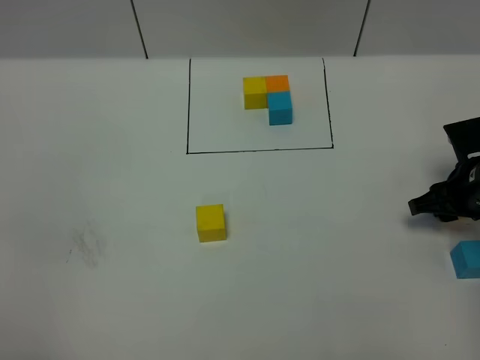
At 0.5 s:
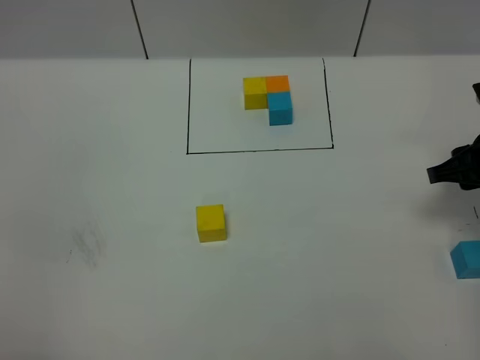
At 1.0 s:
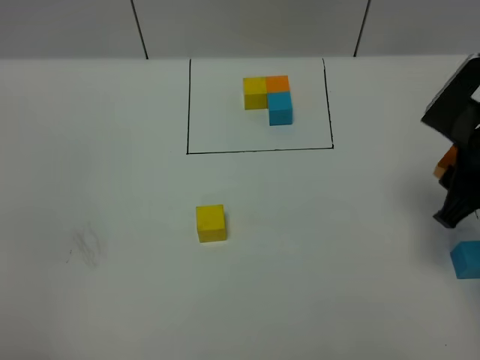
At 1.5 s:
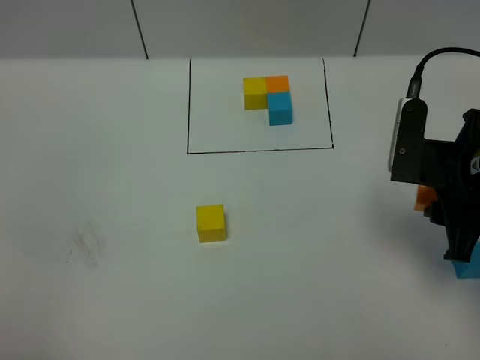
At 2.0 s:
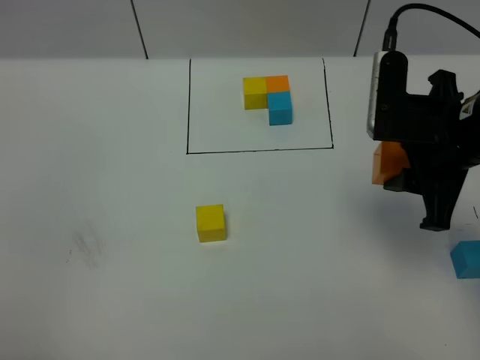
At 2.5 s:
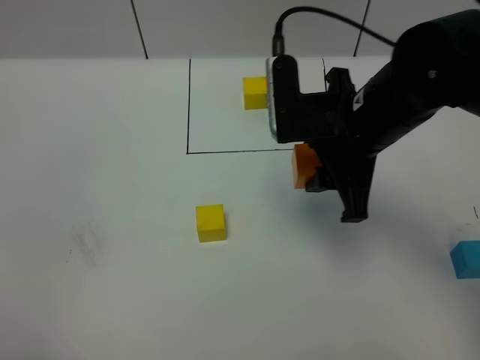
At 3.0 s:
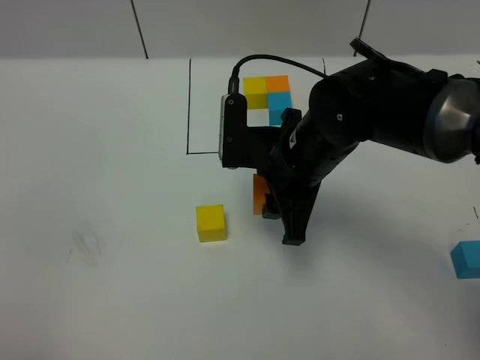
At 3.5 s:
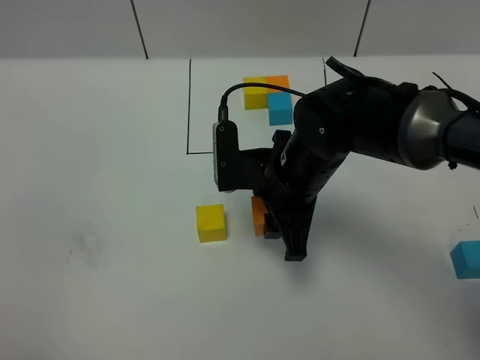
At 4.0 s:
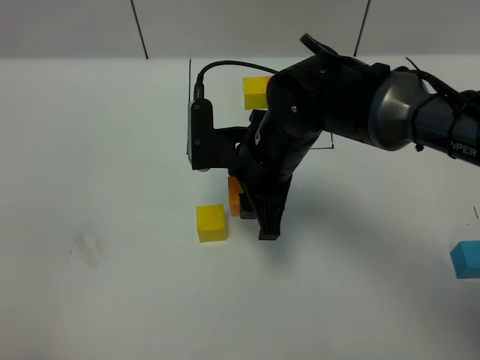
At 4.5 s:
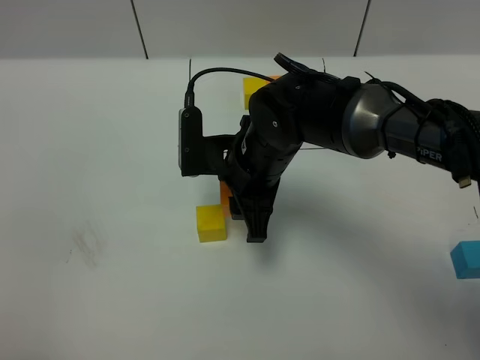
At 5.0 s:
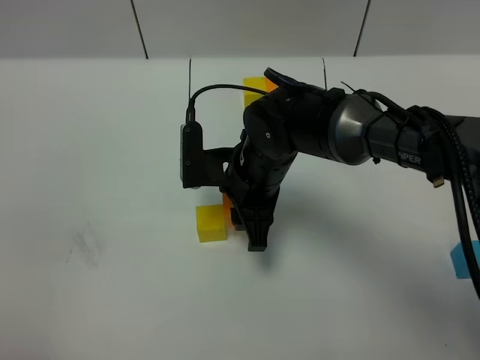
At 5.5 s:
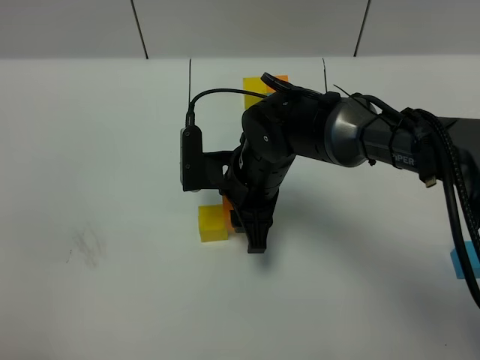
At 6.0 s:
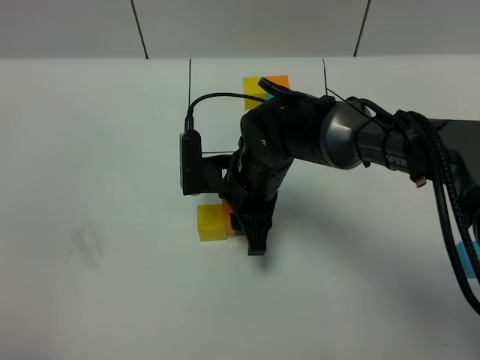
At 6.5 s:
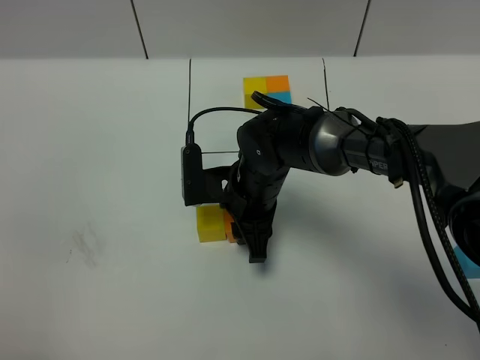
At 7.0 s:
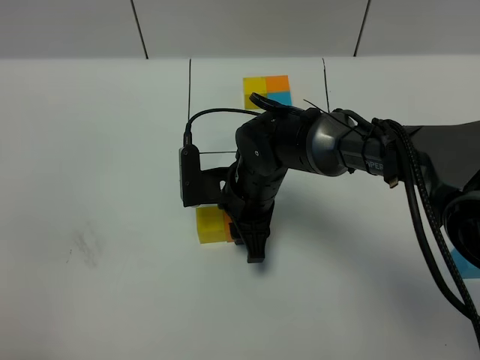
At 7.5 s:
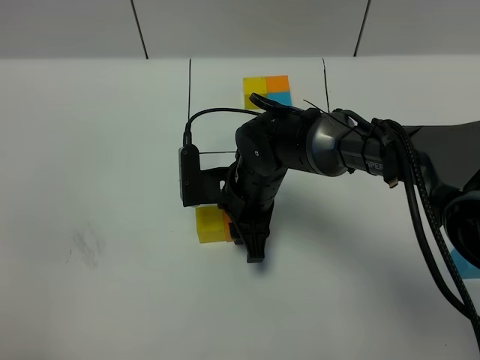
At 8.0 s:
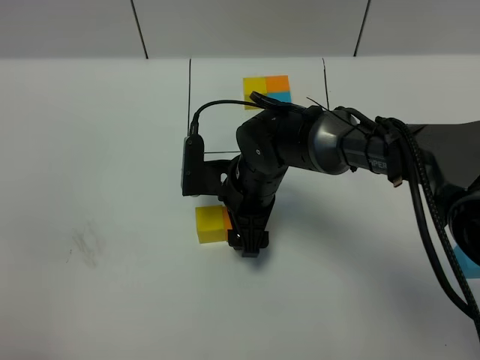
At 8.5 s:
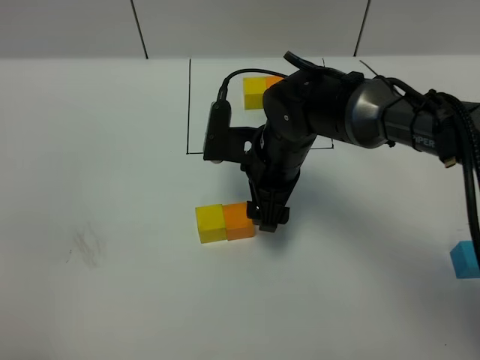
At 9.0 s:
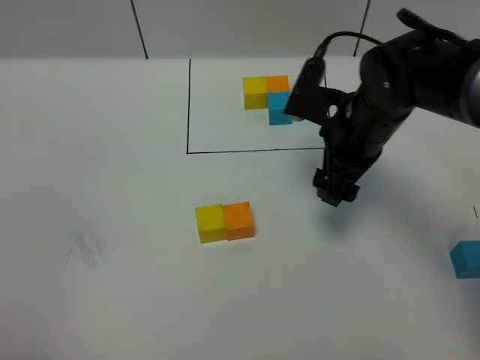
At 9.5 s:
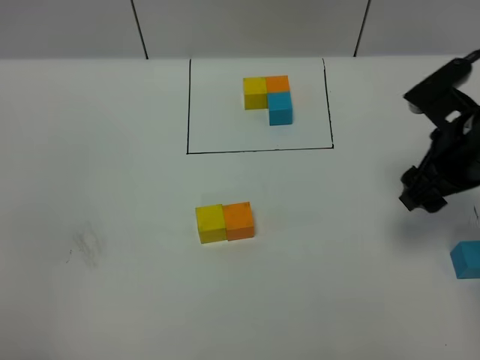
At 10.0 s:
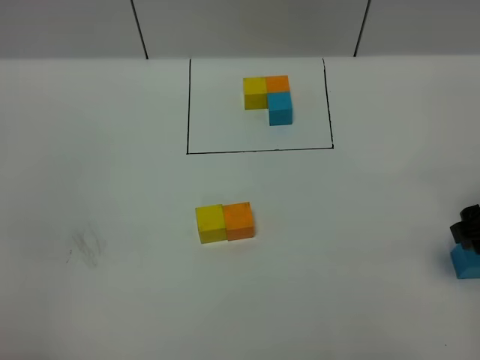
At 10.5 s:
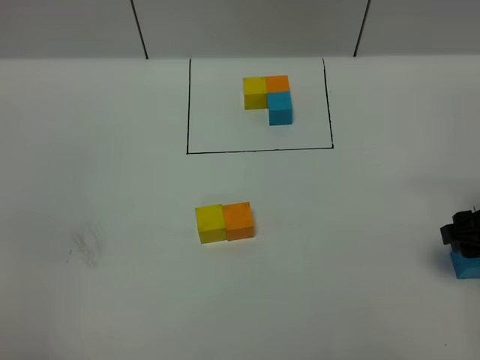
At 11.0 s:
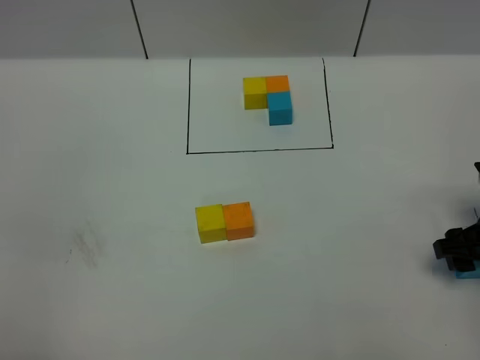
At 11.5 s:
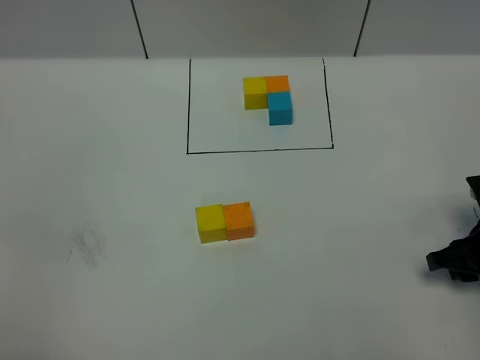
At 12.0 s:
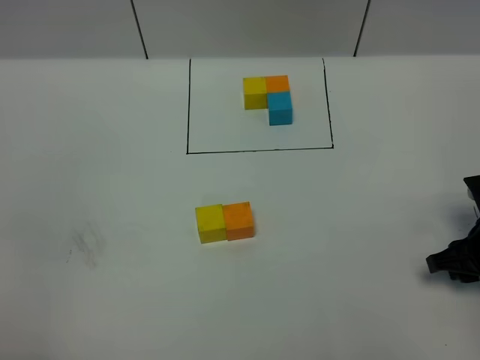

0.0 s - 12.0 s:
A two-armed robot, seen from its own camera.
Task of the whole recording: According to the building block template in front, assemble the scattered blocks together.
Step, 0.0 s - 8.5 s: Put the orange cube on the right of the yellow cube.
0.0 s - 2.0 s: The right gripper goes about 20 cm upward and to the left.
2.0 s - 4.0 s: The right gripper is displaced to the left and downward by roughly 20 cm.
4.0 s - 6.0 s: The right gripper travels downward by some 5 cm.
6.0 s - 8.0 s: The right gripper opens its fingers.
8.0 s - 10.0 s: The right gripper moves to the right, roughly 30 cm.
10.0 s - 12.0 s: The right gripper is displaced downward by approximately 10 cm.

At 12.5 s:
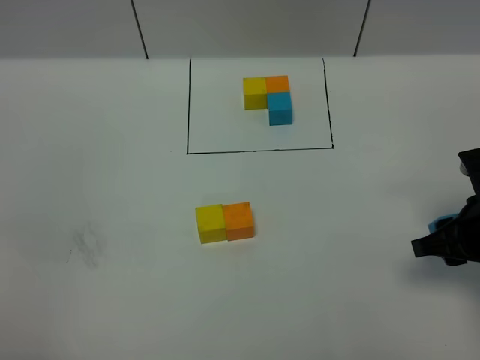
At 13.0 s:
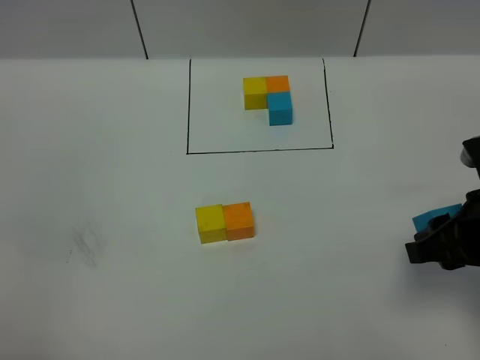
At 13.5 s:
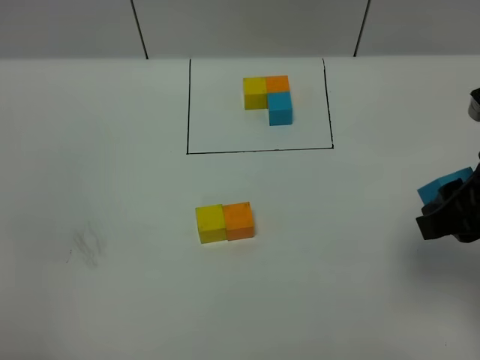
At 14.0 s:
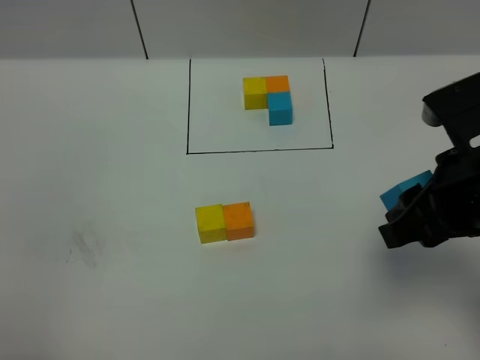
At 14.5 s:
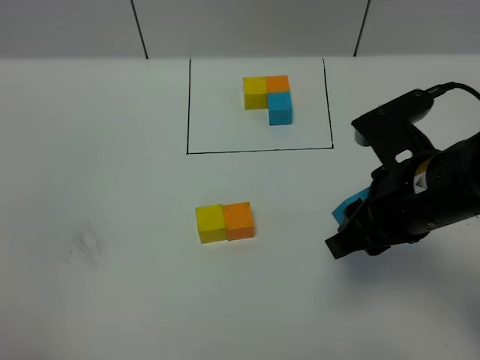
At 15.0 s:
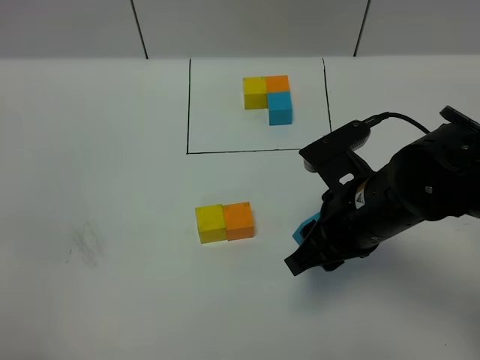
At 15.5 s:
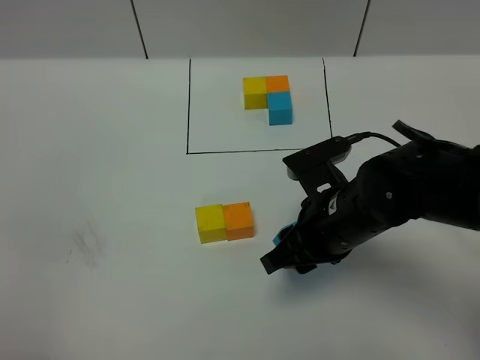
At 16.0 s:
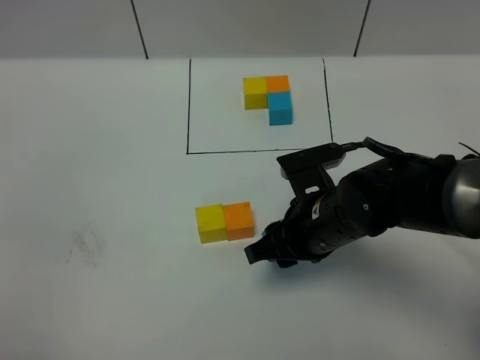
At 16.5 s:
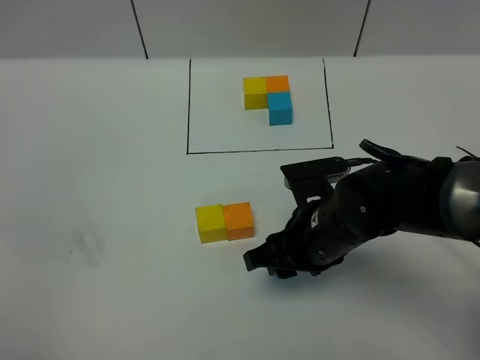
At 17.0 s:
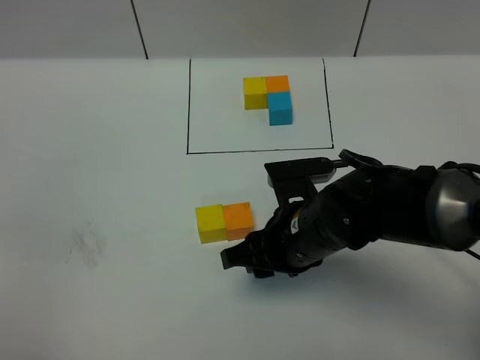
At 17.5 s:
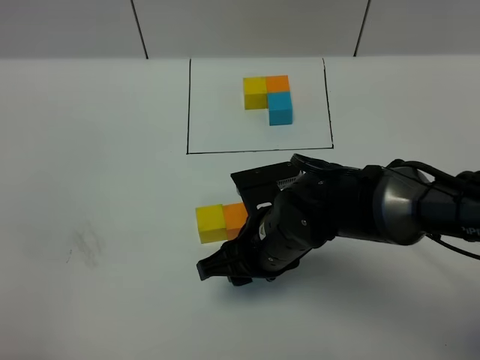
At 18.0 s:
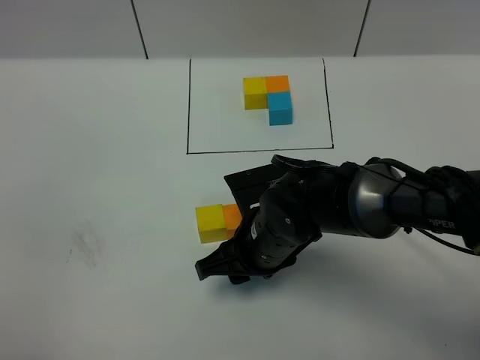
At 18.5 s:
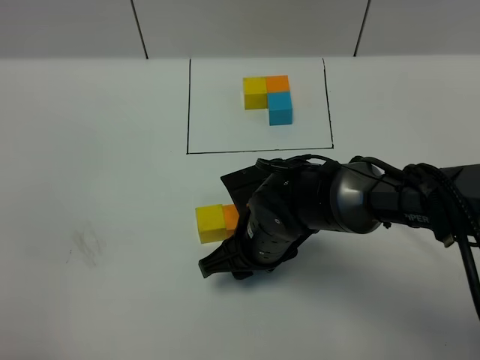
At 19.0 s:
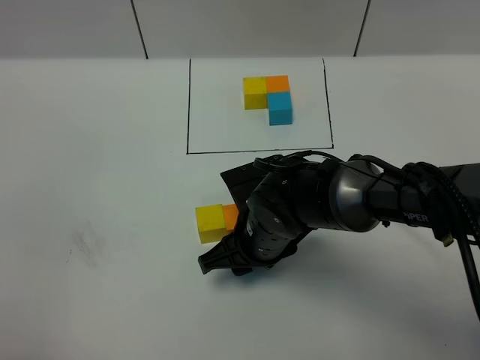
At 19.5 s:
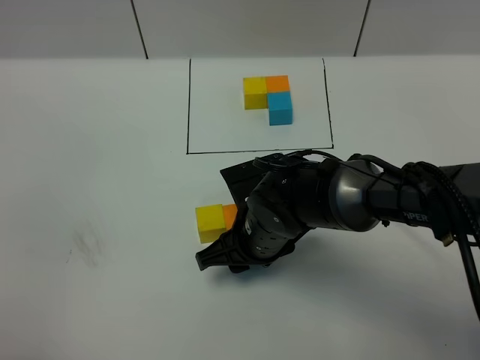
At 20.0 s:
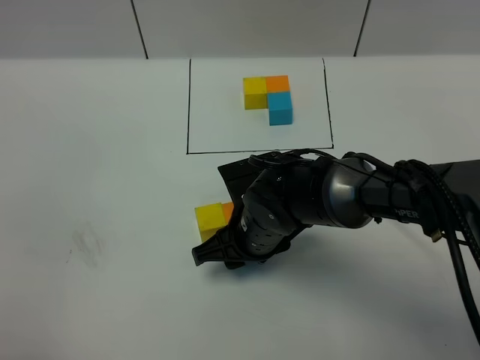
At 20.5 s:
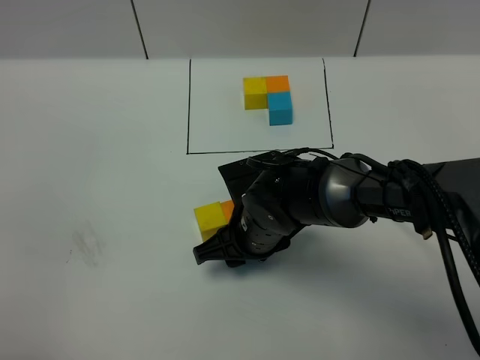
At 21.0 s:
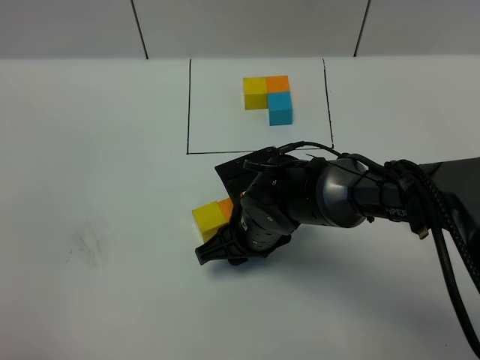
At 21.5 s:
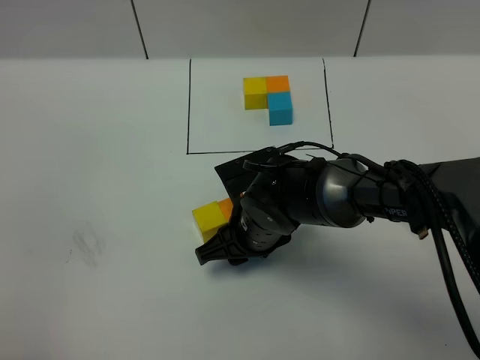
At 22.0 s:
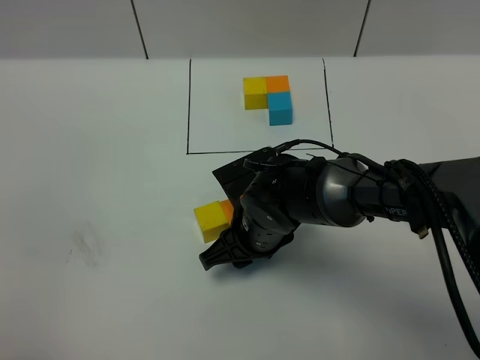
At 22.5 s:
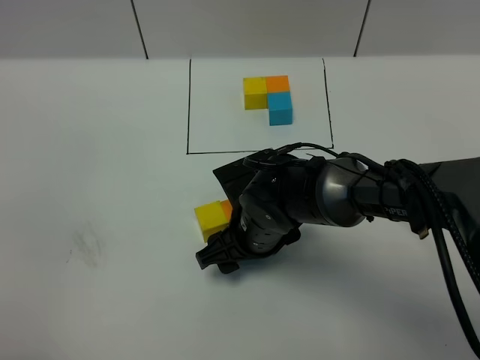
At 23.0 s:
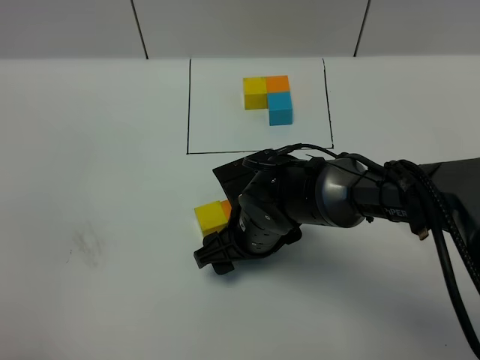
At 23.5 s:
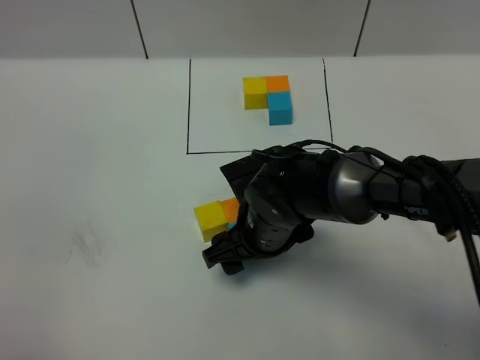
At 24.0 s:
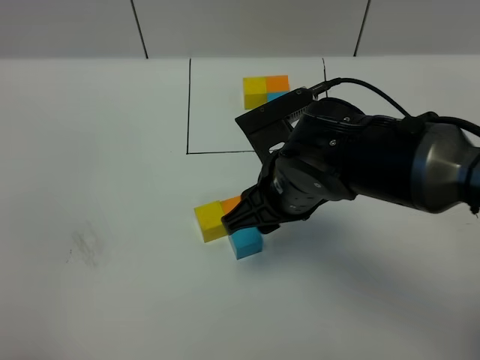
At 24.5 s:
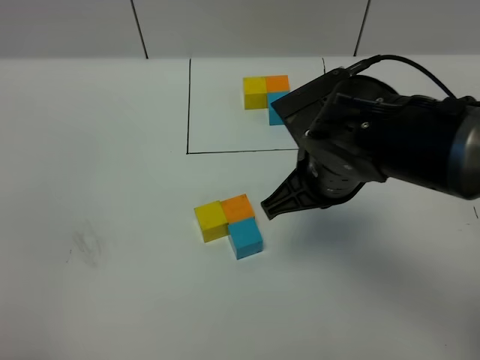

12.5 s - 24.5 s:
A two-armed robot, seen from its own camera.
Task of the whole recording: According to the building block template in front, assemble the scattered blocks together.
Step, 12.5 s - 24.5 s: Put the blue cube on the behind of the orange cube.
12.5 s - 14.5 s: The right gripper moves to the left and upward, some 15 cm.
14.5 s - 16.5 s: The right gripper travels downward and to the left by roughly 10 cm.
16.5 s - 18.5 s: The right gripper is displaced to the left by approximately 5 cm.
18.5 s - 22.5 s: There are only small adjustments of the grippers.
22.5 s - 24.5 s: The right gripper travels upward and to the right by roughly 15 cm, and closes.

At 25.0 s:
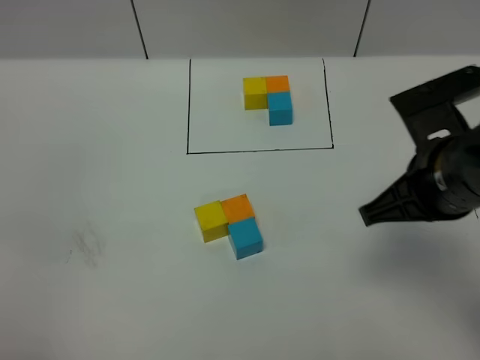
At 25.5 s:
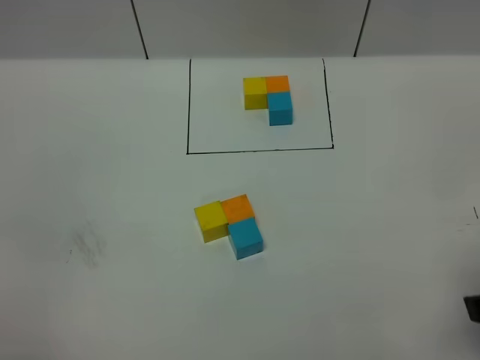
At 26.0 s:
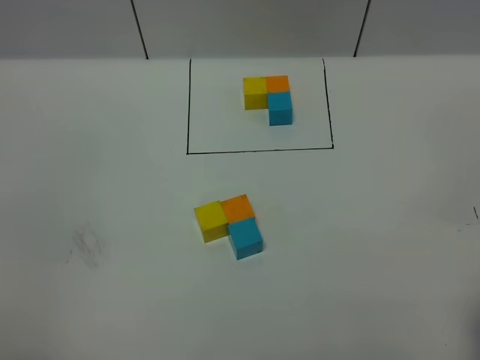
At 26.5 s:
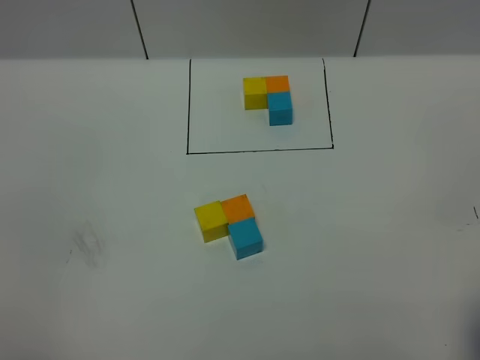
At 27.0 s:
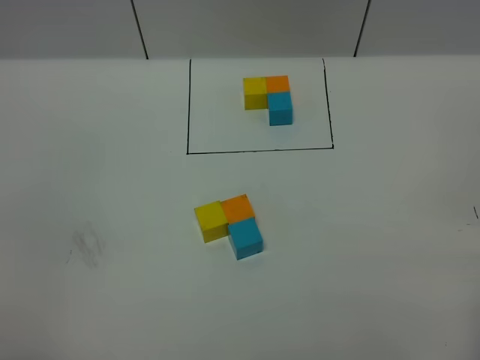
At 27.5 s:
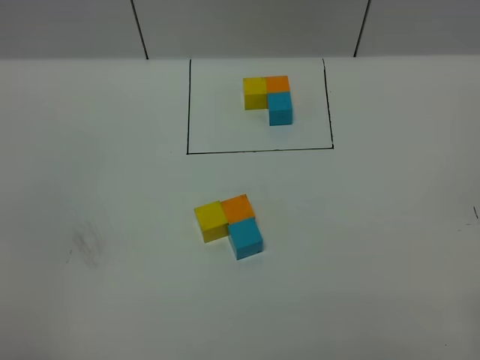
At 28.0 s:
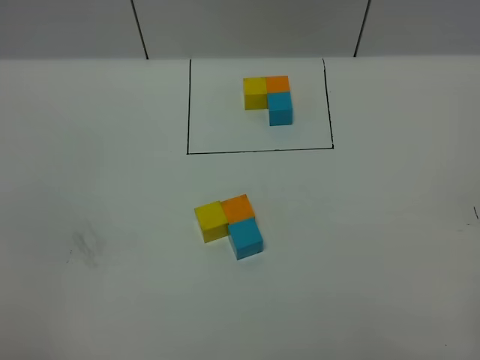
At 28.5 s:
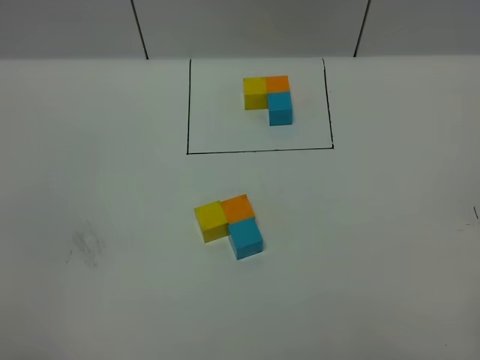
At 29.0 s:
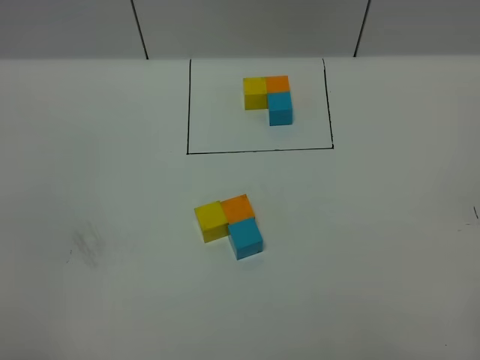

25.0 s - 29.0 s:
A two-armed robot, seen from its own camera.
Task of the whole recording: According to the building block template in front, assemble the scattered blocks together.
25.0 s - 27.0 s: The right gripper moves backward and to the right, some 20 cm.
